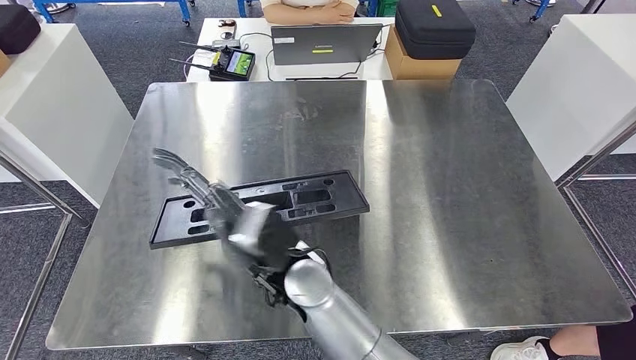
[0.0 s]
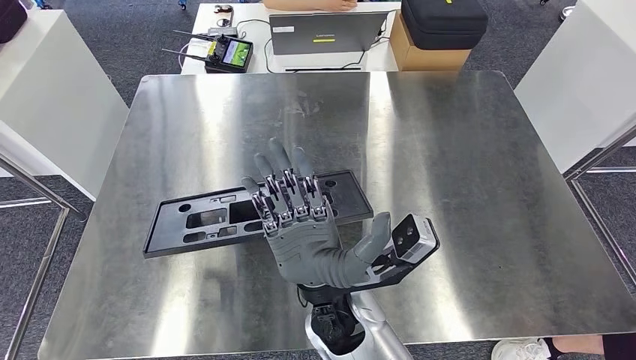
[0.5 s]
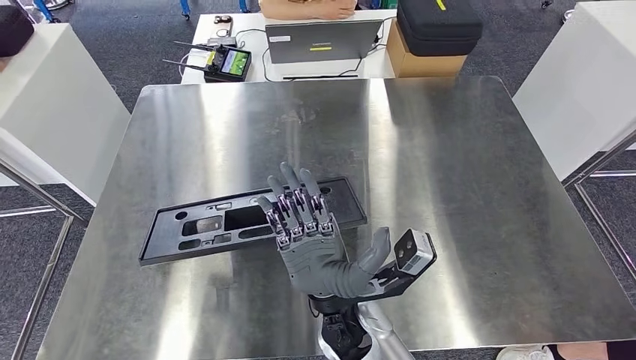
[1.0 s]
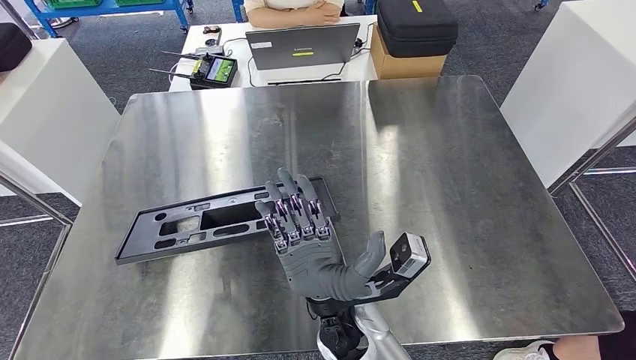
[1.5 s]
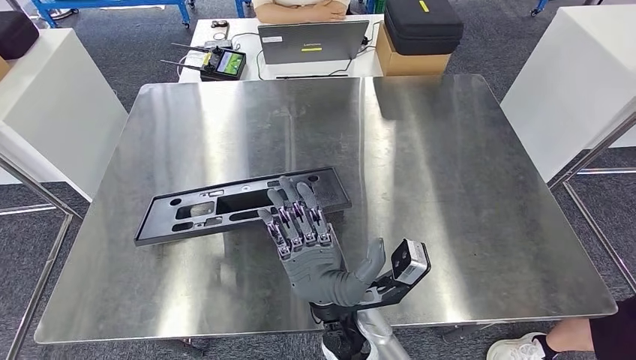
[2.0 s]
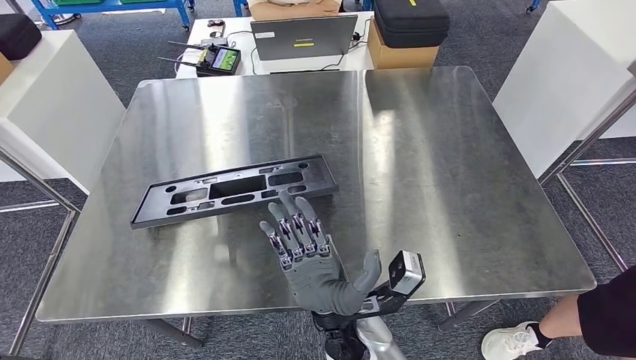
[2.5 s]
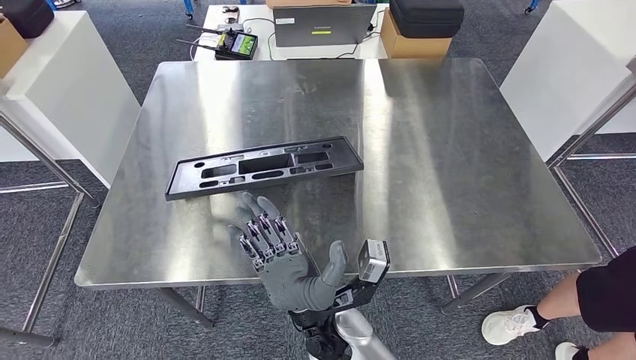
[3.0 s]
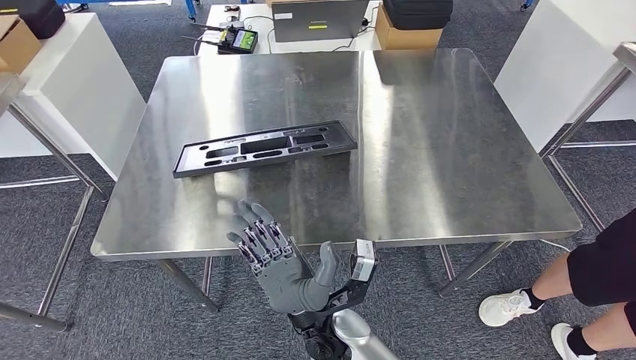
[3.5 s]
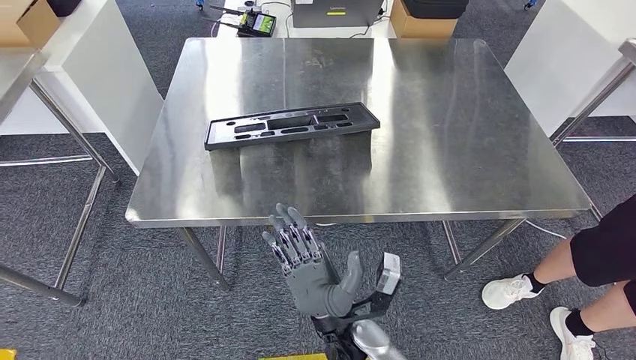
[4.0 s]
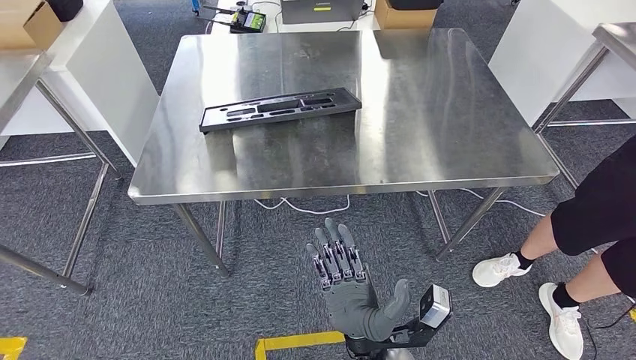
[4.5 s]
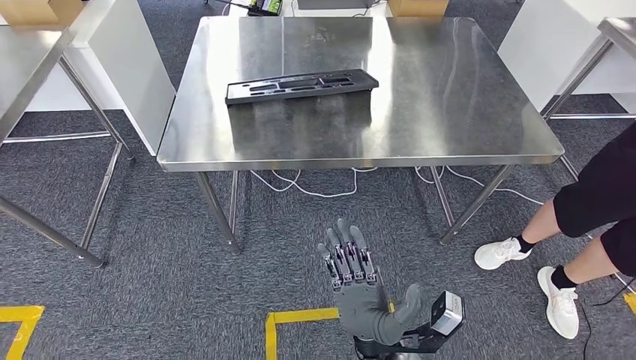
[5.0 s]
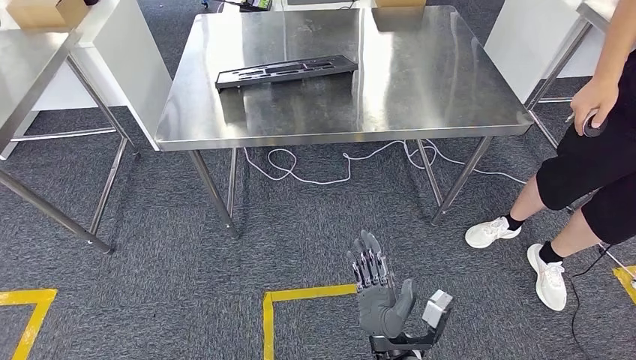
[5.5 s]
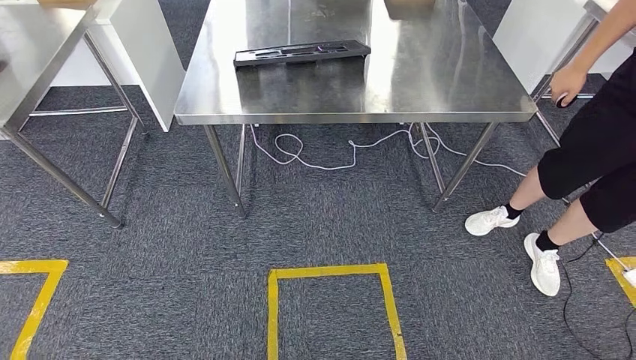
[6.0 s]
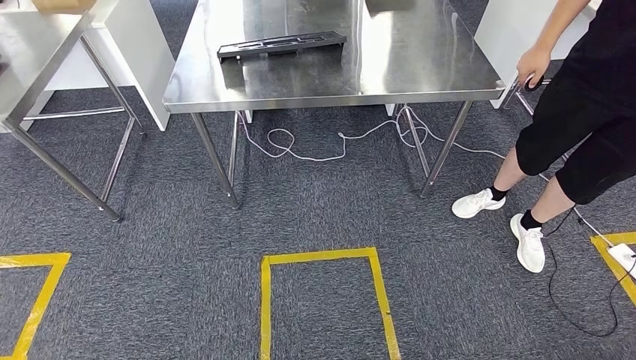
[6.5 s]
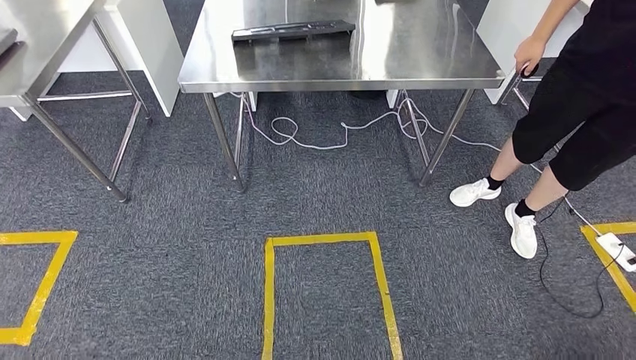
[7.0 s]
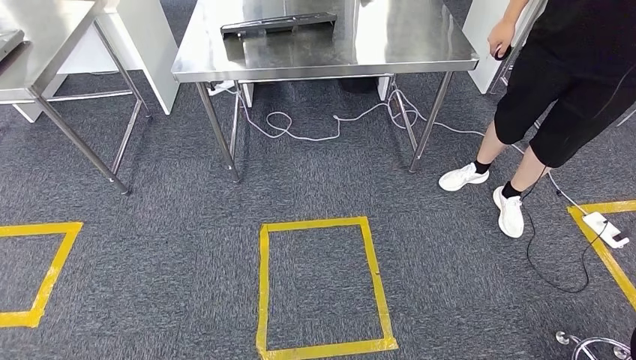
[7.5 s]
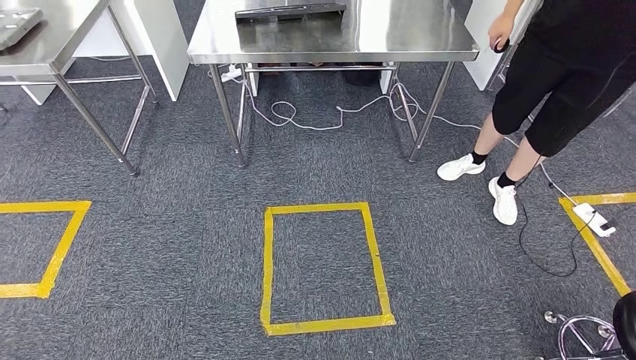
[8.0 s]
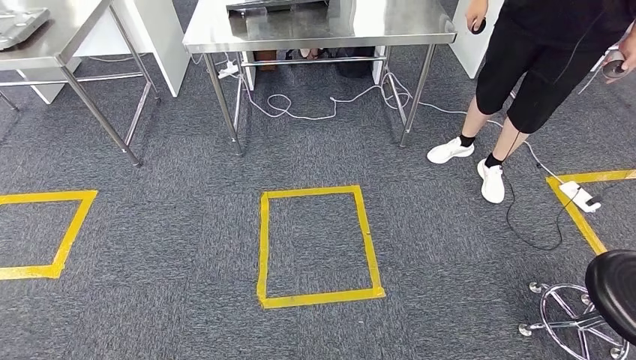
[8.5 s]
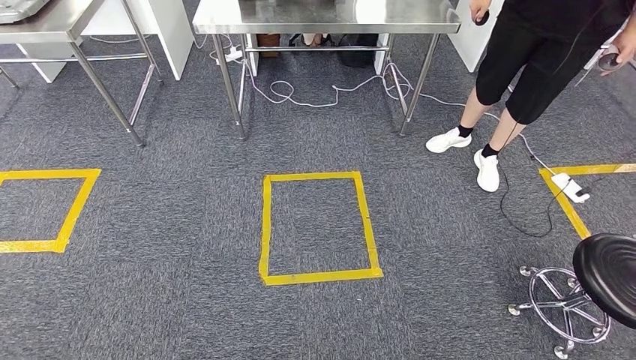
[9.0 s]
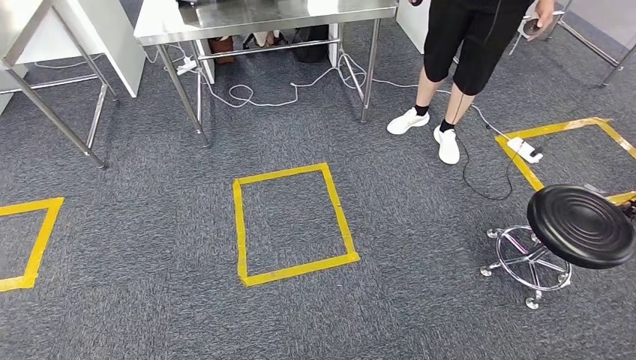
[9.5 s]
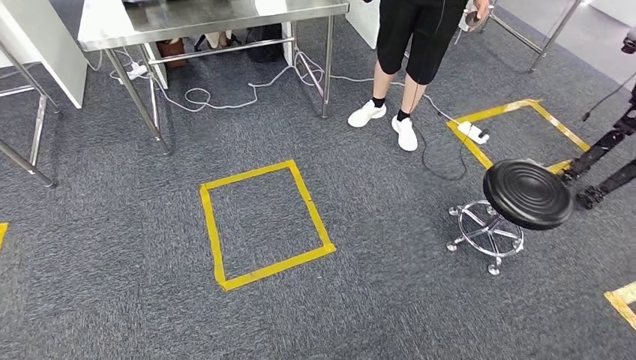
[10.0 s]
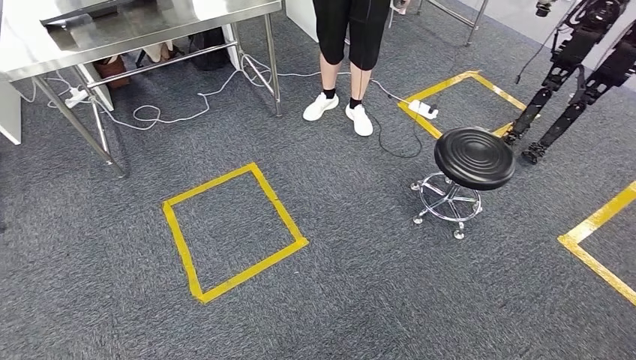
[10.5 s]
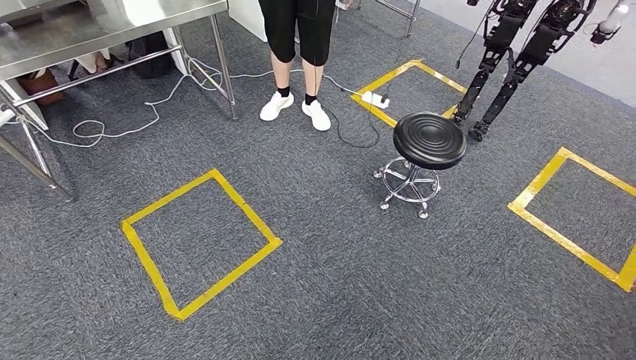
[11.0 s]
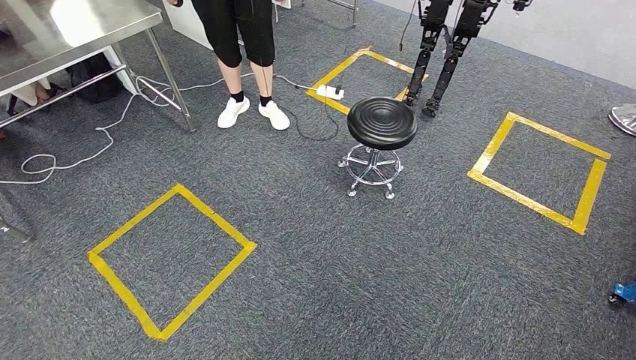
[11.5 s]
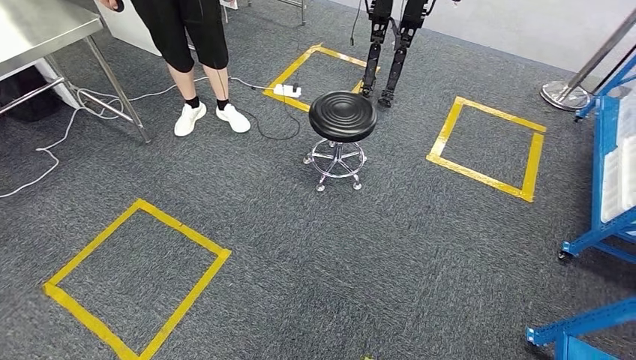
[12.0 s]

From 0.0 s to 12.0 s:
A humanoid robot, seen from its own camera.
Step, from 0.0 s to 6.0 s: Insert the large parts into the corresponding slots on the workbench.

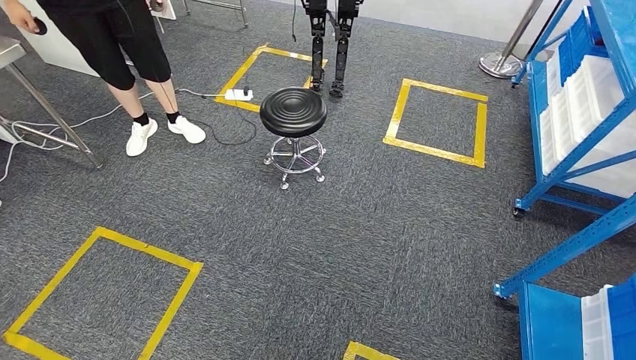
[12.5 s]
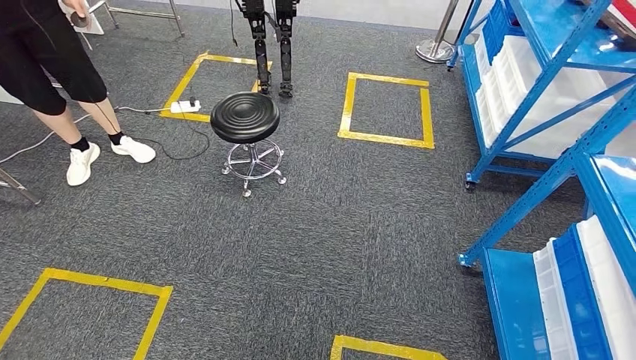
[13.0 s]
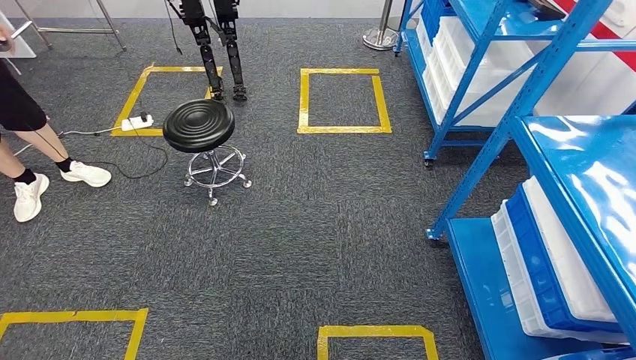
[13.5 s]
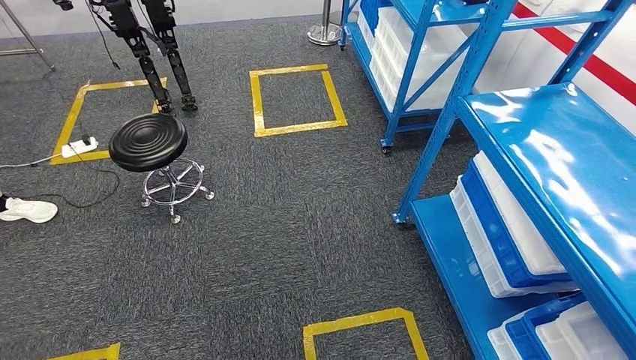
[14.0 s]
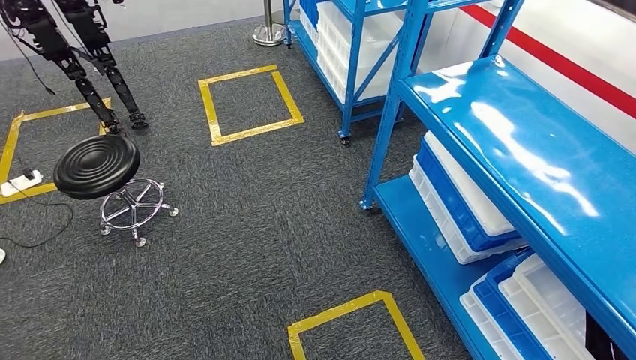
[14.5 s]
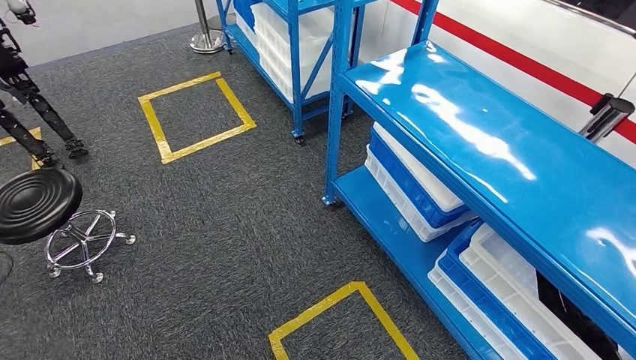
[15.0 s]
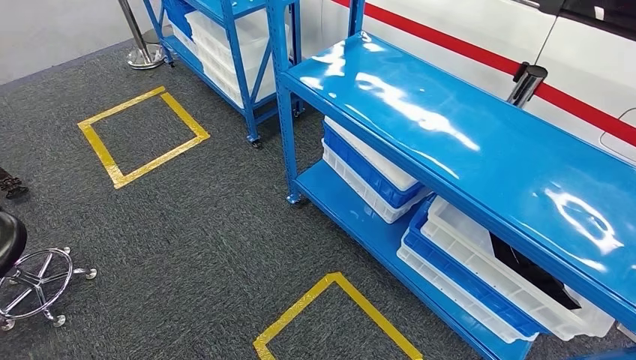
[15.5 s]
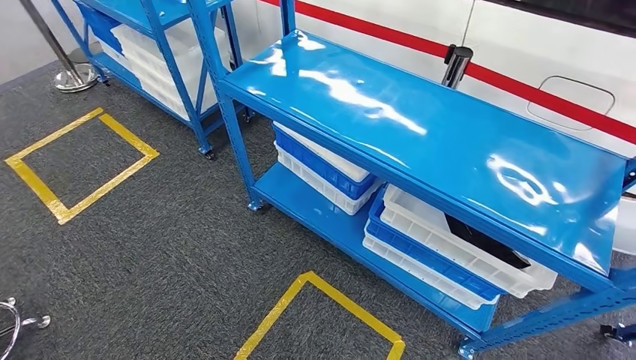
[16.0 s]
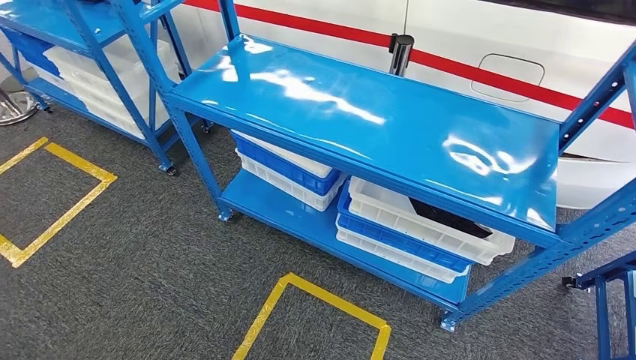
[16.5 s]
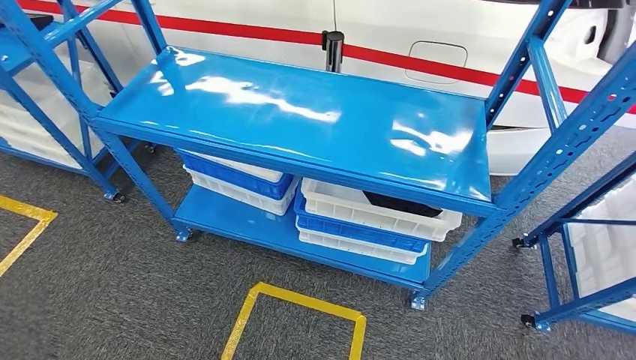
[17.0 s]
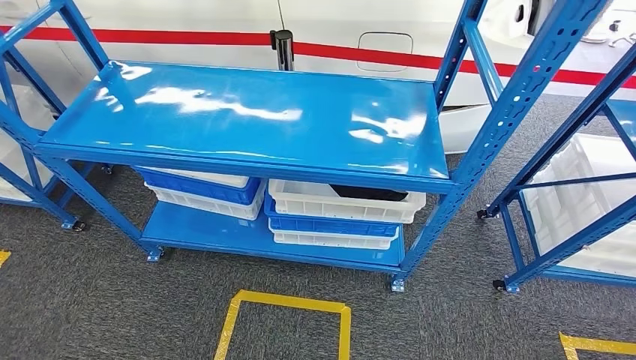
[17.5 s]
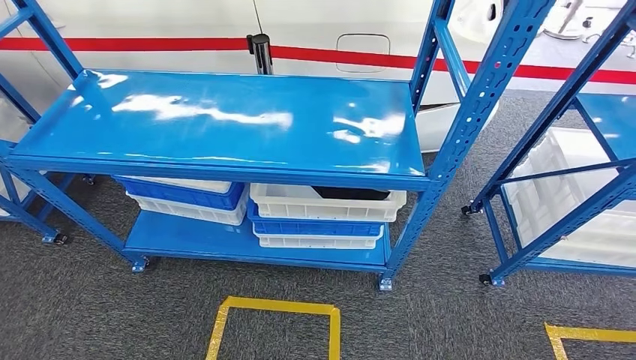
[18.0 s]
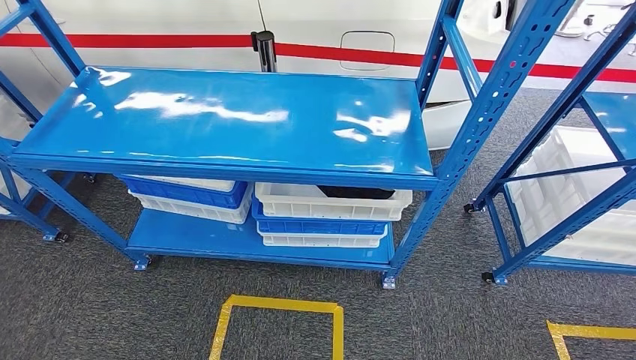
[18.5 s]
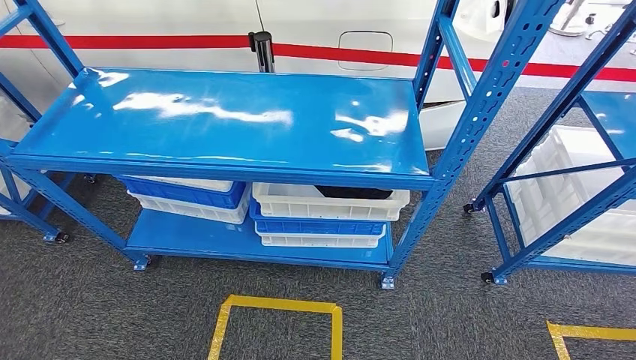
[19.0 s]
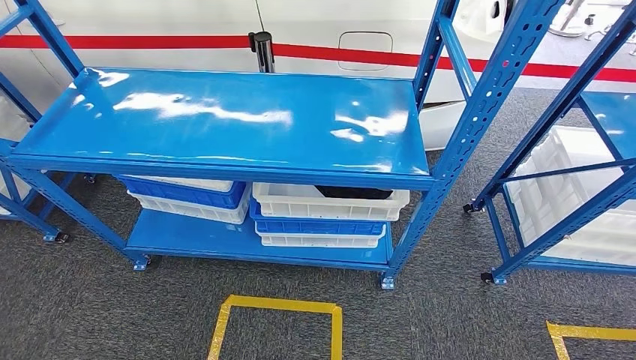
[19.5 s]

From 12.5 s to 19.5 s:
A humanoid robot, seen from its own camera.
Step, from 12.5 s to 19.5 s: Return to the initial position at the shelf.

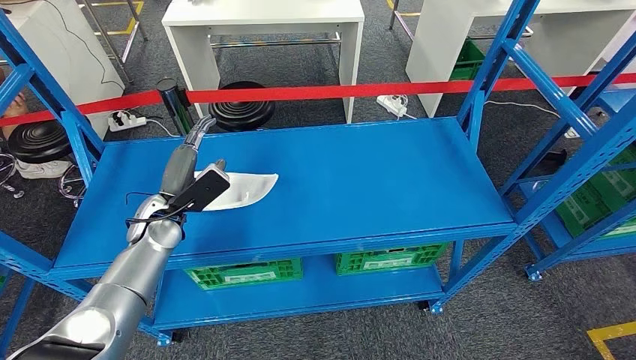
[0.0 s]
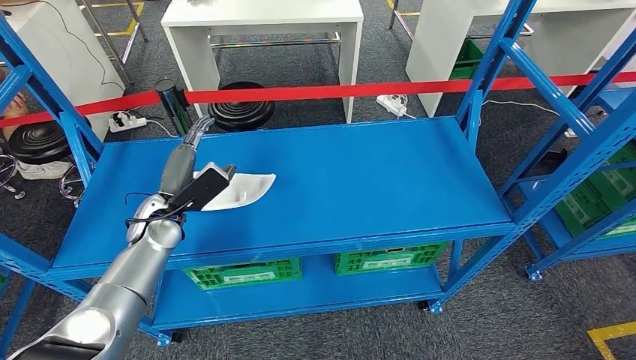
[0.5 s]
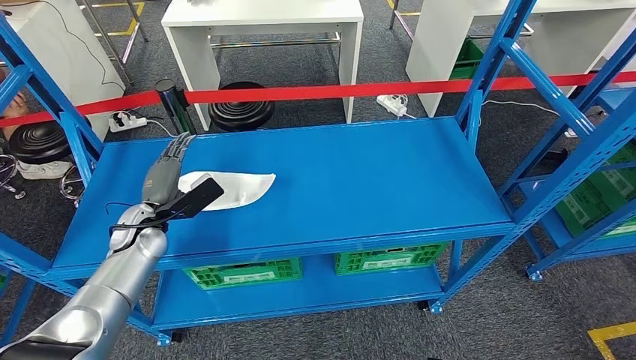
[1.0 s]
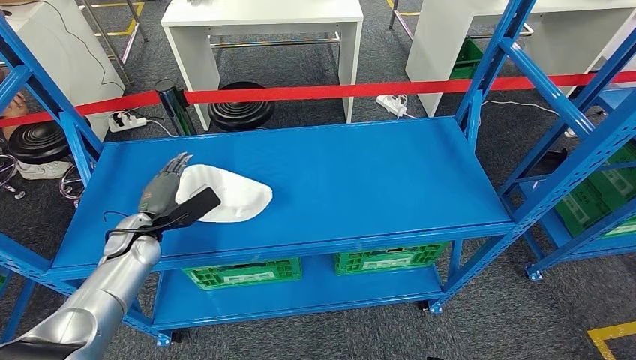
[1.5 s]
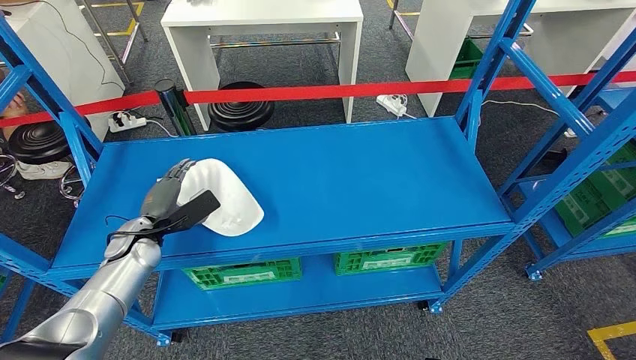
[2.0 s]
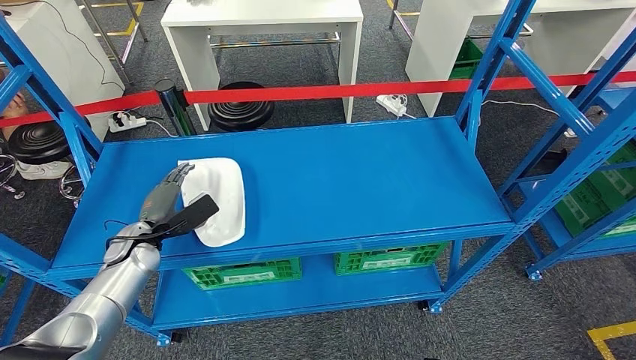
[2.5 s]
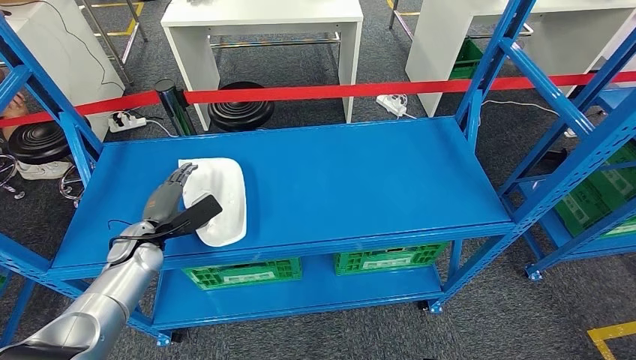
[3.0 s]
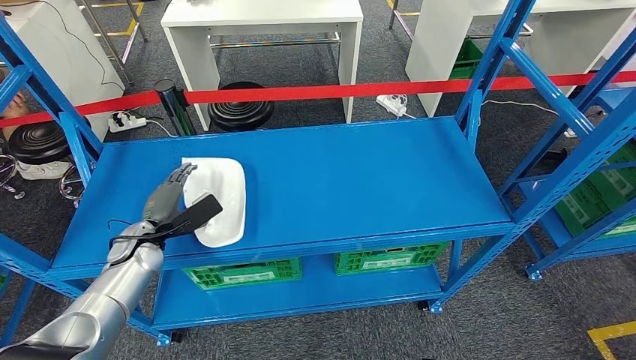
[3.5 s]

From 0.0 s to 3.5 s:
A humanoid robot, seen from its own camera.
From 0.0 s to 2.0 s: The left hand is displaced to the left by some 5 cm.
From 2.0 s to 3.5 s: Neither hand changes place.
